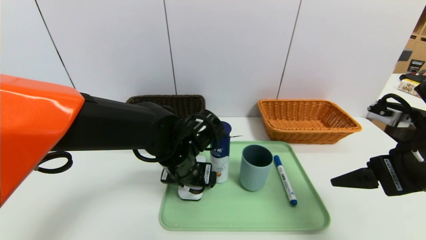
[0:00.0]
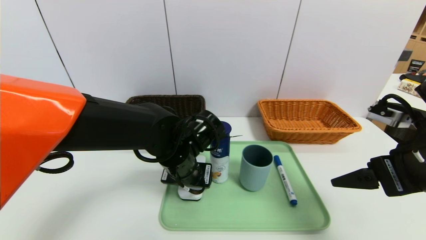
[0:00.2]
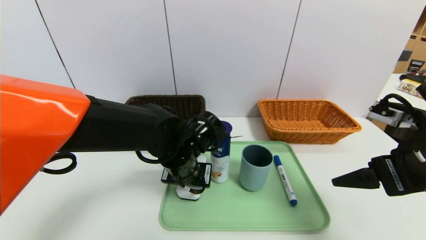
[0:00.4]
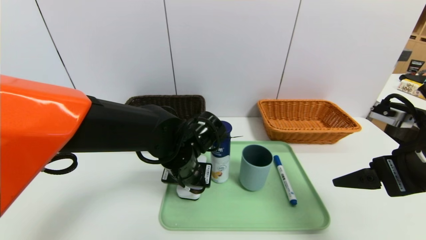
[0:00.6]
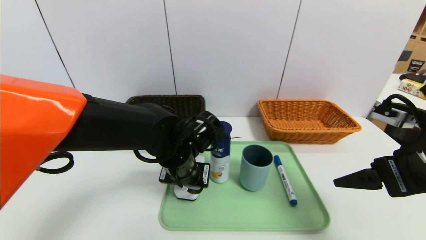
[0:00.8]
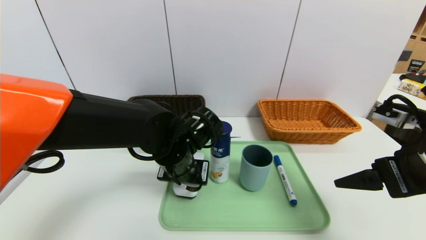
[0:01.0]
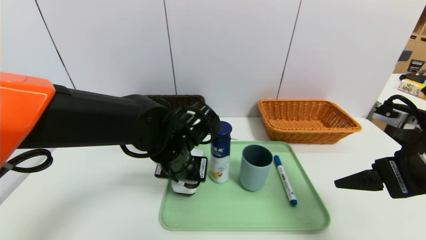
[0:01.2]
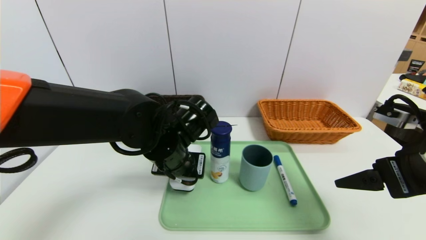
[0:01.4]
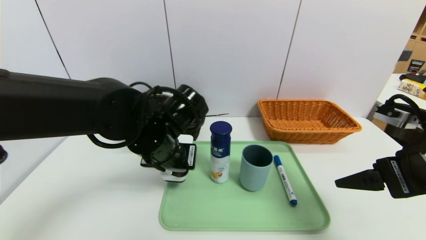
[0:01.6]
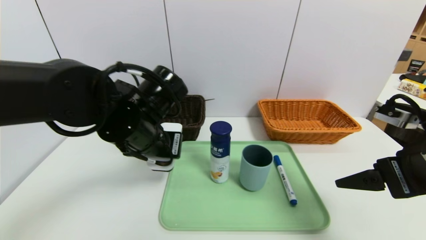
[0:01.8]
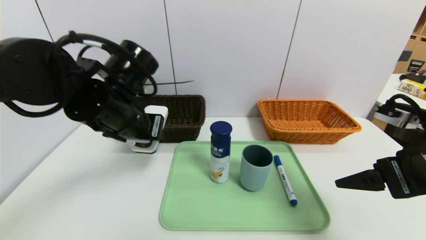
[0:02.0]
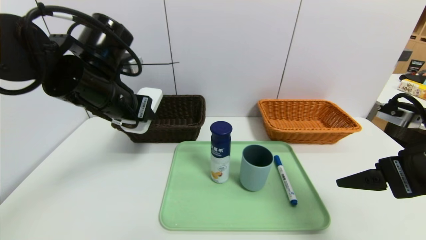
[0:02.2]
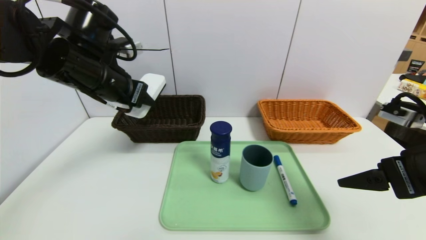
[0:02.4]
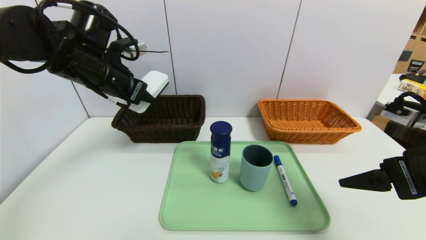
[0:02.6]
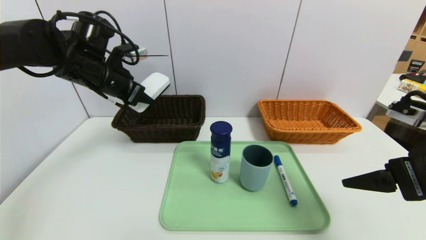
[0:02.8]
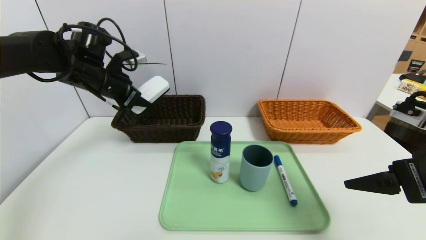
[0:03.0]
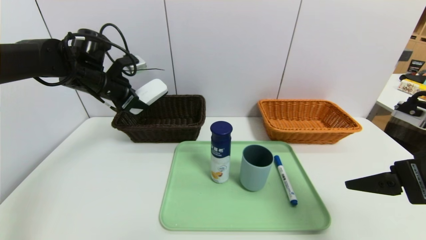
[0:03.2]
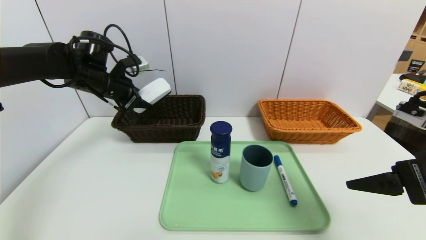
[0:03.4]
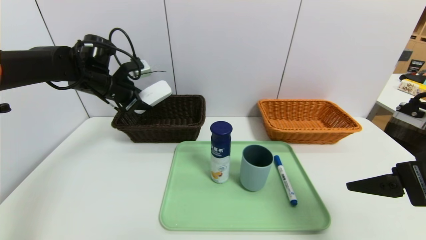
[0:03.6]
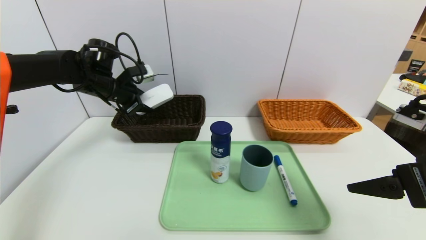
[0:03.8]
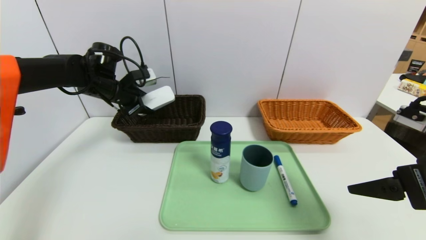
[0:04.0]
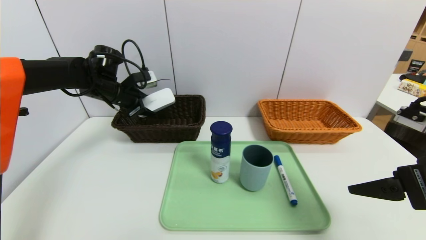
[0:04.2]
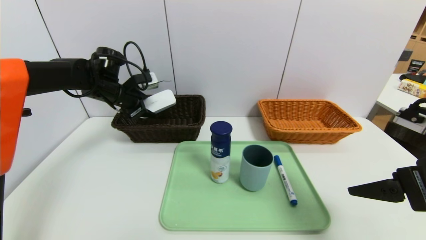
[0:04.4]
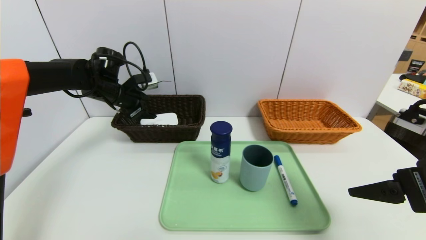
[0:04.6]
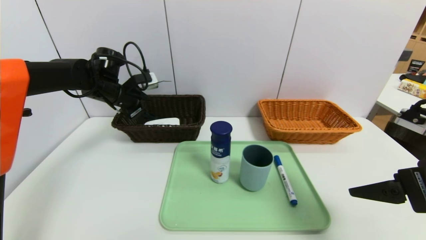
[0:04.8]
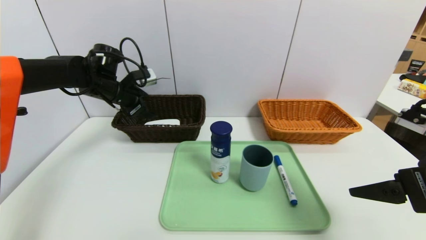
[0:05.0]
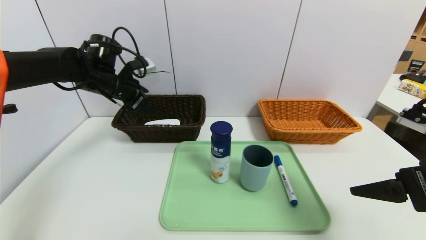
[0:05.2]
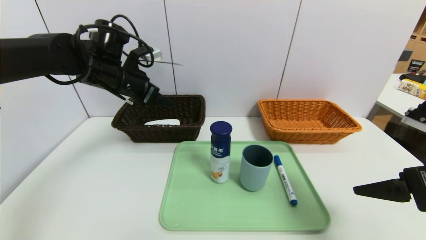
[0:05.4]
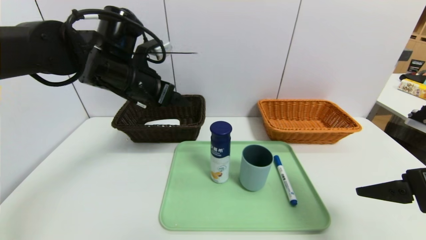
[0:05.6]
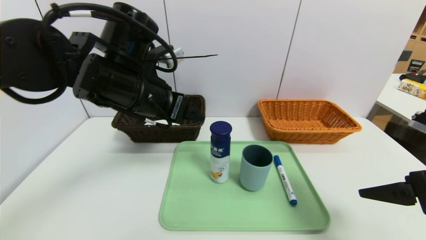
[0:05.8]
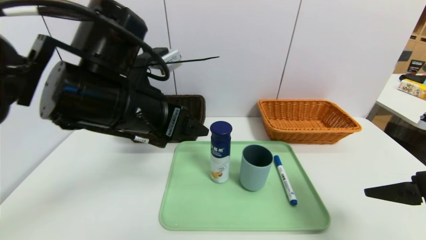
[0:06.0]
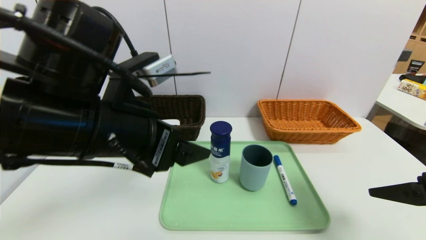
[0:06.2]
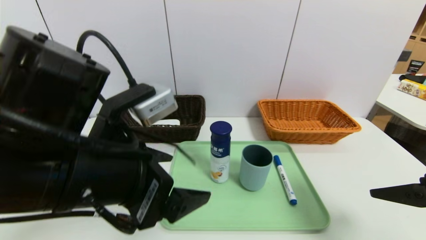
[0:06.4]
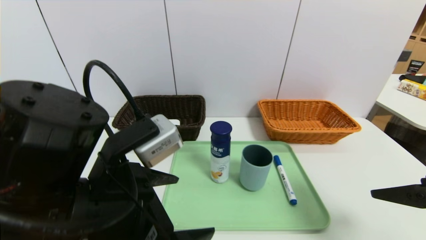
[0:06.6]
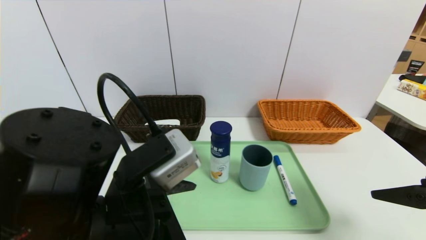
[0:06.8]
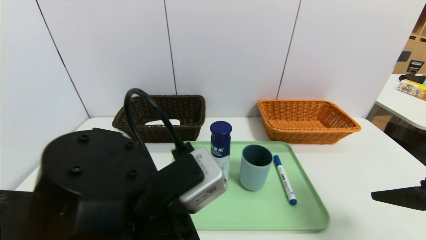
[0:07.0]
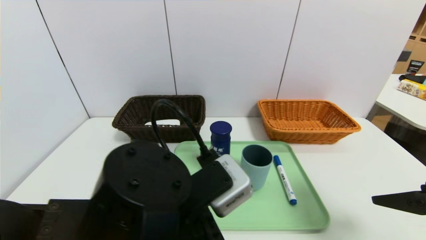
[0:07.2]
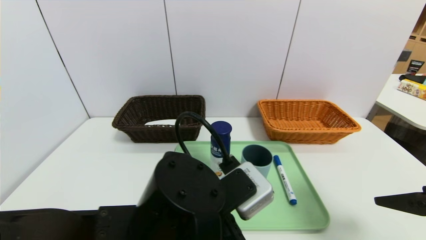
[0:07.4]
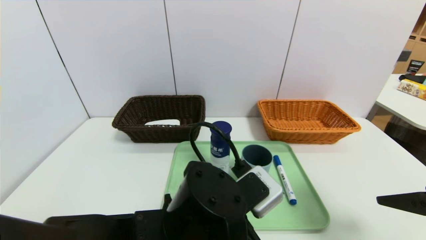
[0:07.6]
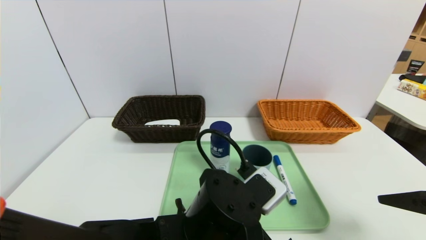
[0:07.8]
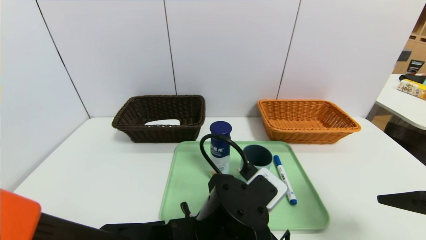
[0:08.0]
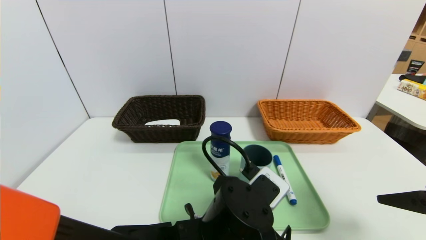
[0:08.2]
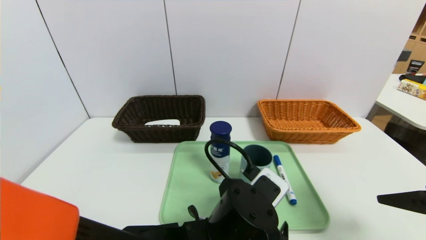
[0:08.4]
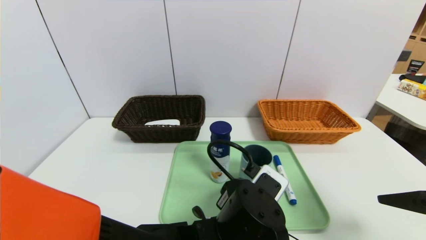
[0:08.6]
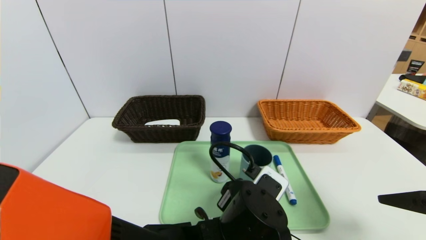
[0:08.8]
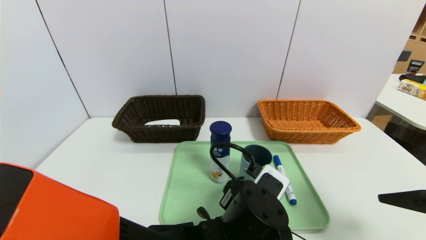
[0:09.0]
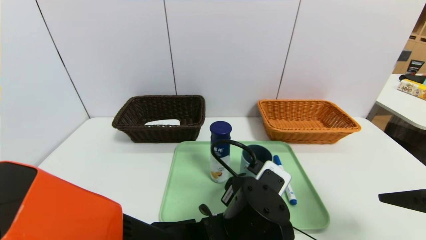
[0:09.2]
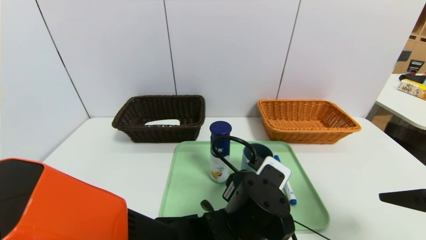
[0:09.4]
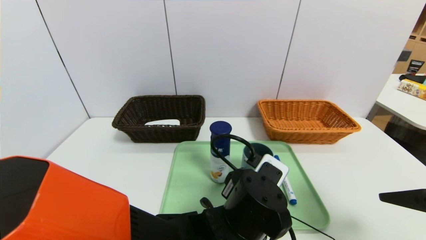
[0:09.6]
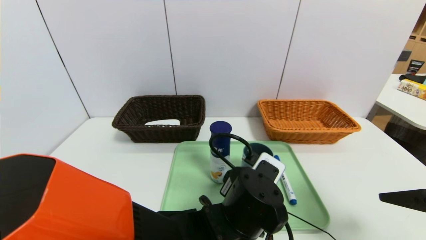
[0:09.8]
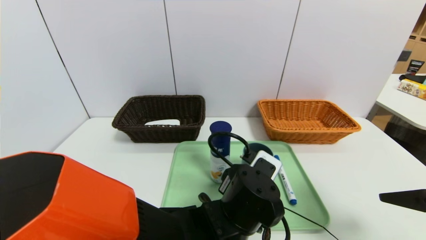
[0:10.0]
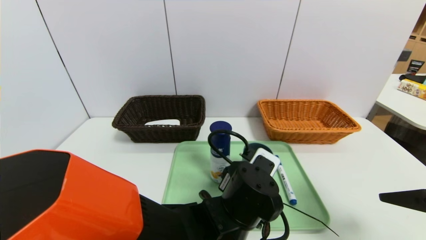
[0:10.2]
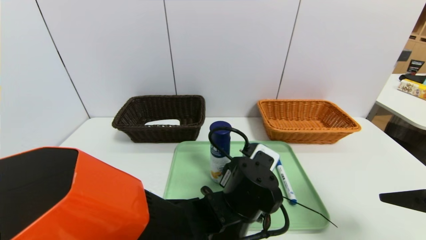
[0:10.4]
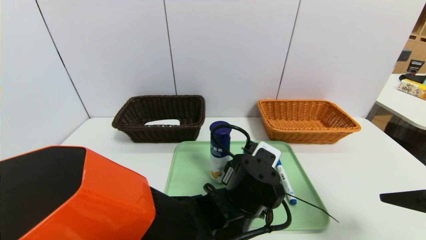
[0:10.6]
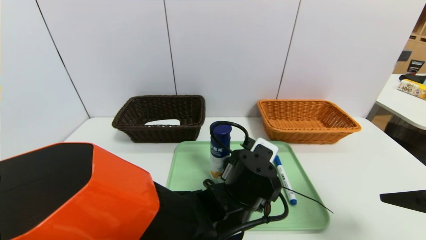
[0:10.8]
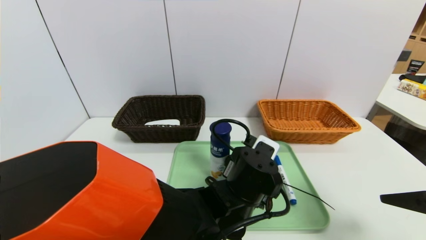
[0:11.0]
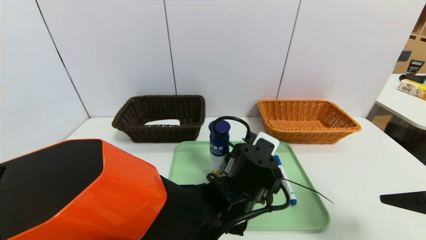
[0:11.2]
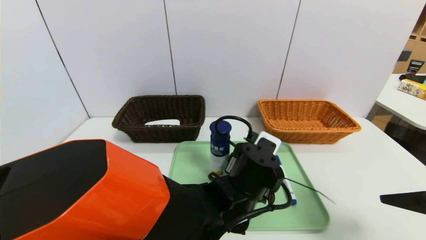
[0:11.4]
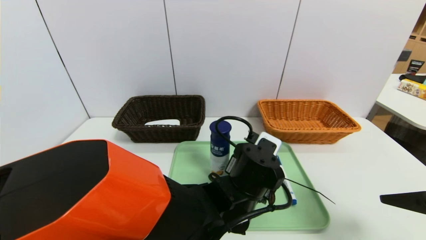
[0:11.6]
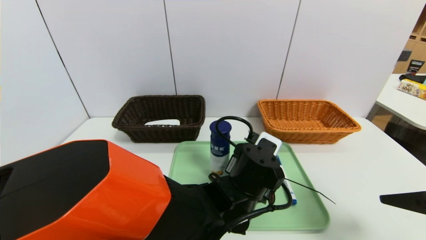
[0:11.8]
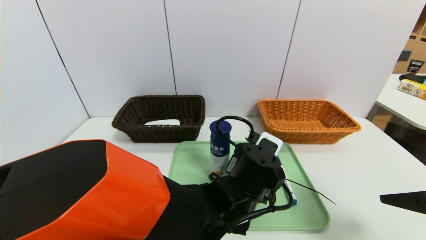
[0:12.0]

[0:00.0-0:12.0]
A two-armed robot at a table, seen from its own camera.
Task of the whole recording: place the food in the right basket with the right gripper, and place the non food items in the left basket with the left gripper.
Step, 0:00.0 to 0:05.2: Grasp the white eraser and put it in the left basket.
0:00.0 to 0:01.6: The left gripper shifts roughly 5 cm upward, and closes up.
0:01.6 to 0:03.0: The left gripper goes roughly 20 cm to the left, forward and upward.
0:03.0 to 0:04.4: The left gripper moves forward, roughly 5 cm.
0:04.4 to 0:06.0: The left gripper is displaced backward and to the right by roughly 25 cm, and opens its fingers.
0:06.0 to 0:07.6: The left gripper is displaced downward, to the right and backward by about 20 cm.
0:07.6 to 0:09.0: The left gripper goes approximately 5 cm to the right.
0:09.0 to 0:10.4: The grippers move only a little.
0:10.4 to 0:12.0: The left gripper closes its fingers.

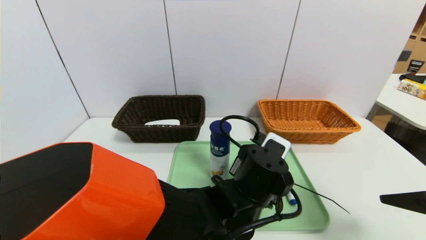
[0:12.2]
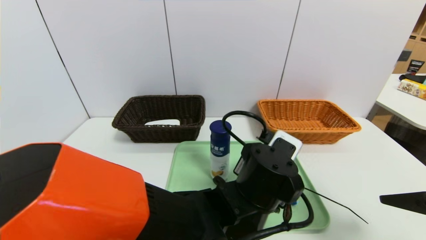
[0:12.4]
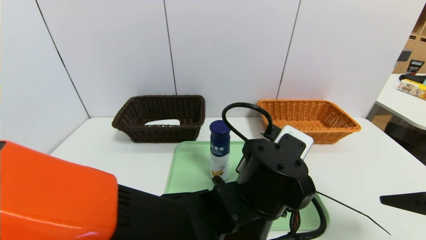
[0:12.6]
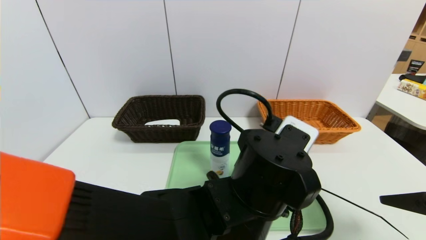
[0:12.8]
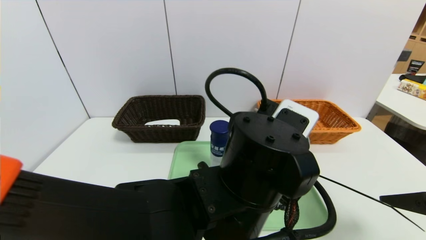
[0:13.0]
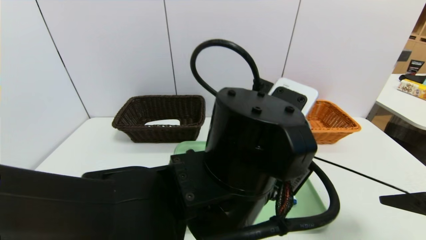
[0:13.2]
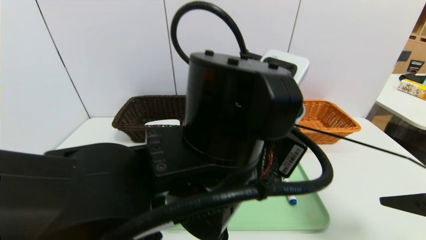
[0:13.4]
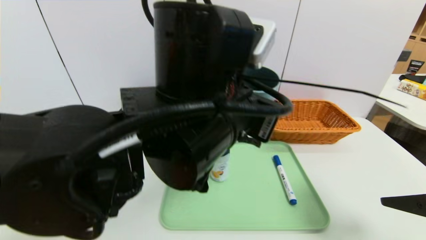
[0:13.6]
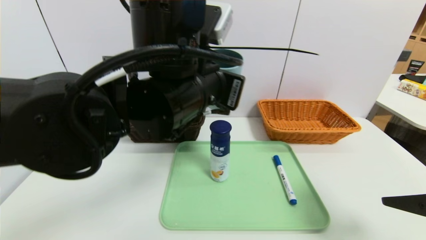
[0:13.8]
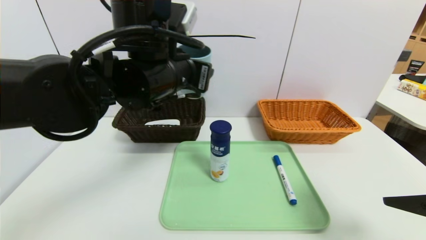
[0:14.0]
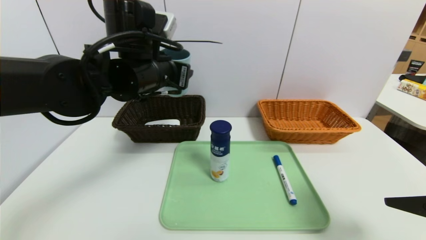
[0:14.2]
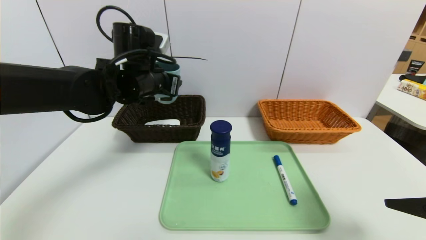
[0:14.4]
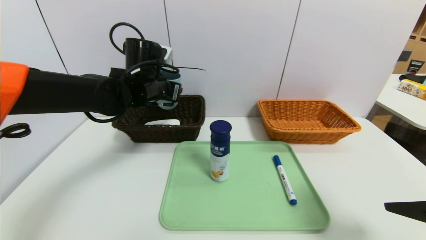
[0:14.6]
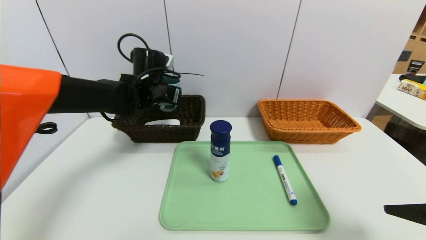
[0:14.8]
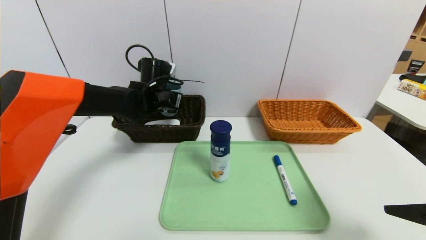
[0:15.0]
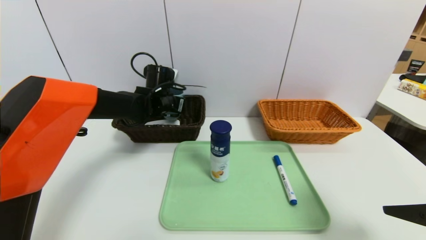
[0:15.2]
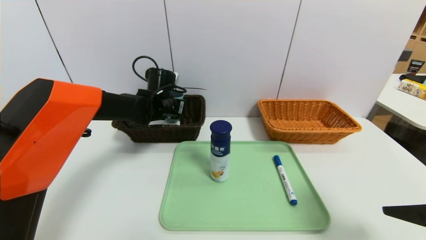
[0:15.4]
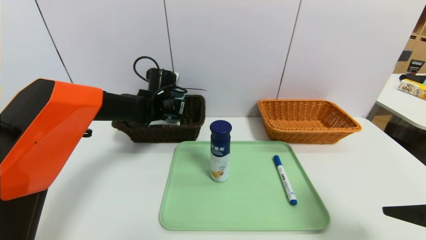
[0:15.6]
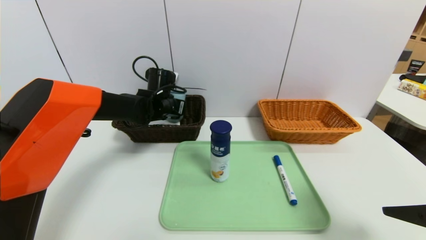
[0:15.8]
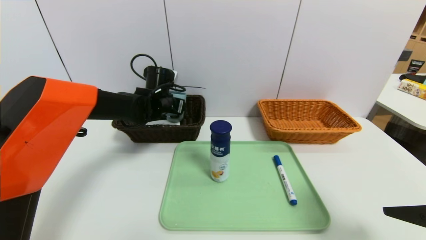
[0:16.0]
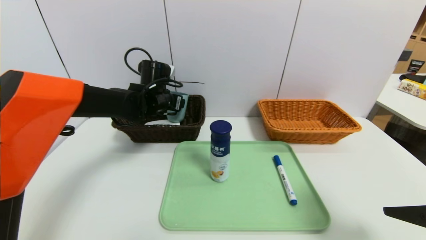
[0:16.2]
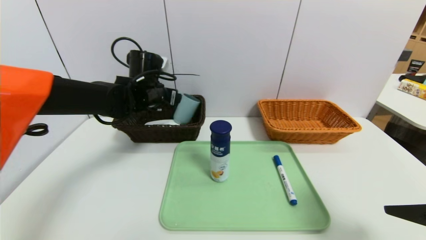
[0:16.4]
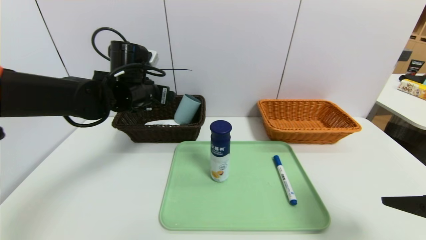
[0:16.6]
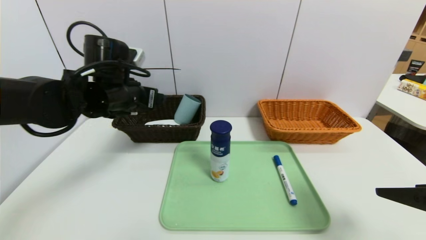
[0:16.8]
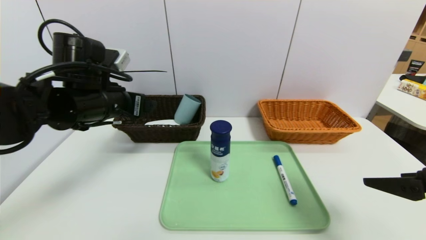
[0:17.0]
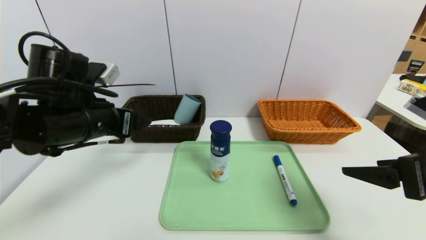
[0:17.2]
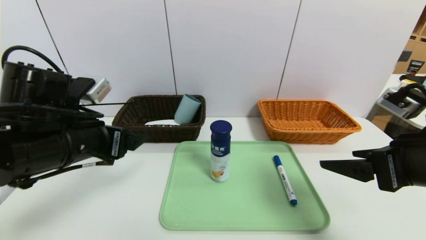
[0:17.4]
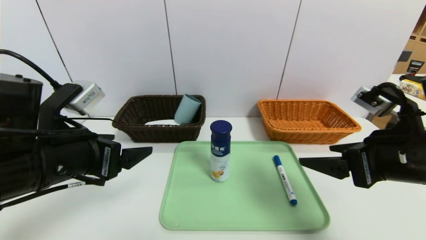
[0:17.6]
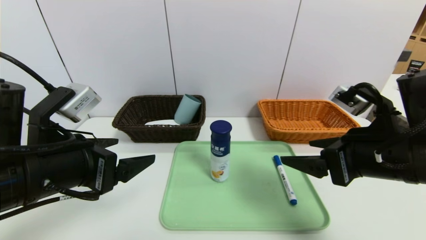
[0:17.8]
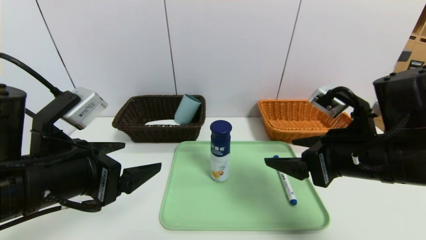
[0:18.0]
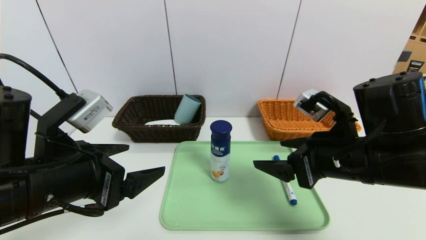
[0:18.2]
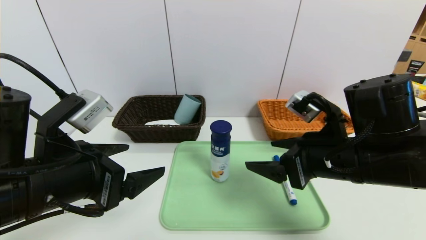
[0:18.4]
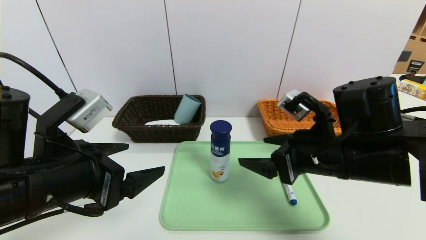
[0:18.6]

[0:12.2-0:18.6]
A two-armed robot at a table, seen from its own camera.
Task of the whole recording: place the food in the right basket with the right gripper, and place the non food items in the left basket with the left gripper.
Step, 0:12.2 to 0:16.4: Grasp the blue cup and put it in the left basket.
0:12.2 to 0:13.8: The left gripper moves upward and to the left, approximately 20 cm.
0:13.8 to 0:15.4: The left gripper goes approximately 25 cm forward, downward and to the left.
0:15.4 to 0:17.0: The left gripper is displaced backward and upward by about 20 cm, and opens its fingers.
0:17.0 to 0:18.6: The right gripper moves to the left and forward, some 15 cm, while the left gripper goes some 15 cm backward.
